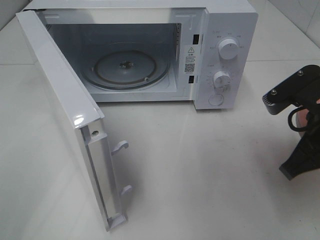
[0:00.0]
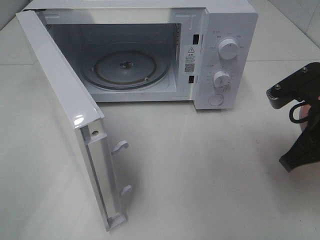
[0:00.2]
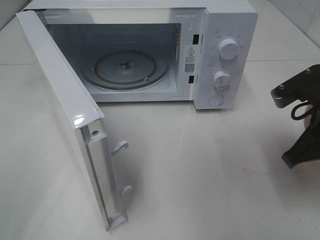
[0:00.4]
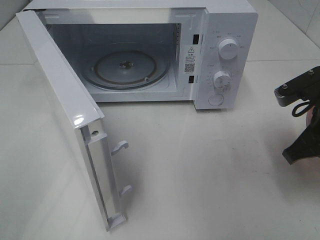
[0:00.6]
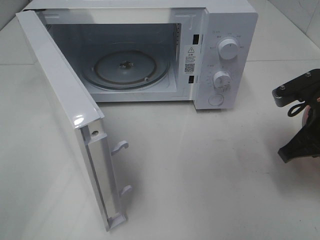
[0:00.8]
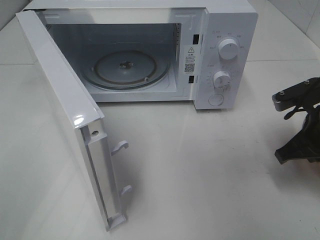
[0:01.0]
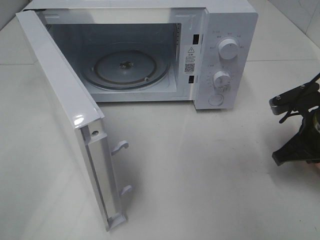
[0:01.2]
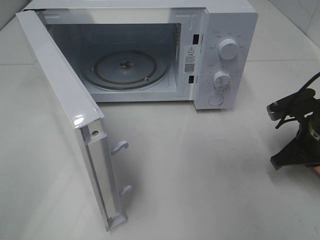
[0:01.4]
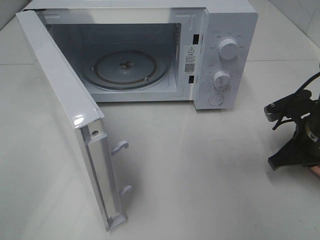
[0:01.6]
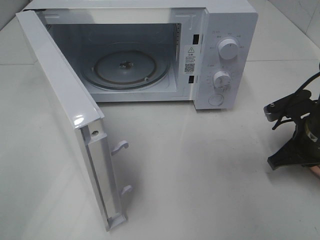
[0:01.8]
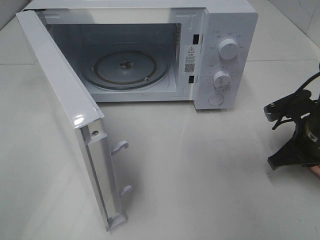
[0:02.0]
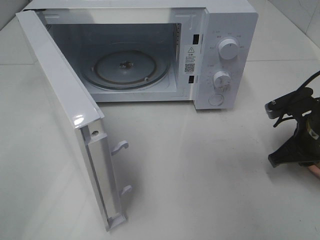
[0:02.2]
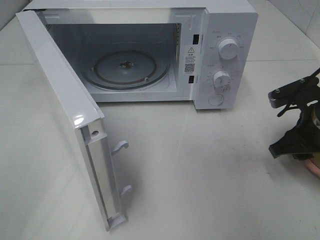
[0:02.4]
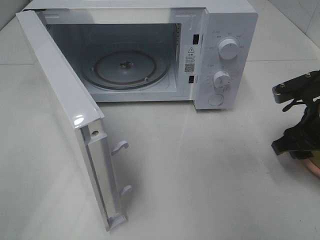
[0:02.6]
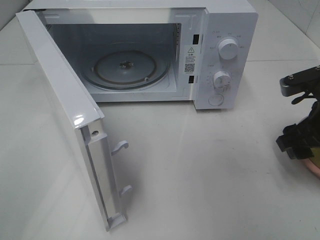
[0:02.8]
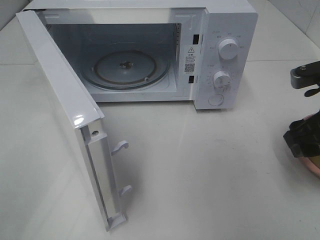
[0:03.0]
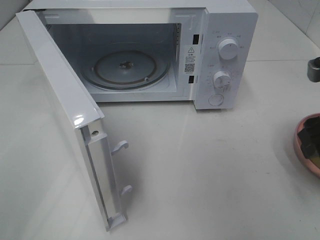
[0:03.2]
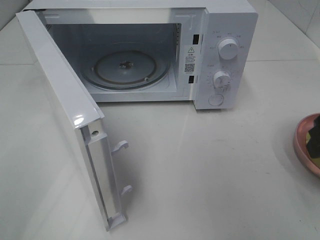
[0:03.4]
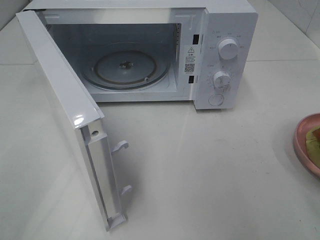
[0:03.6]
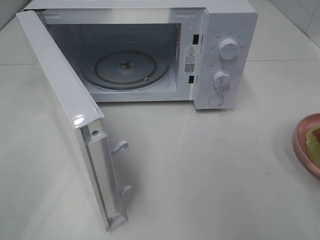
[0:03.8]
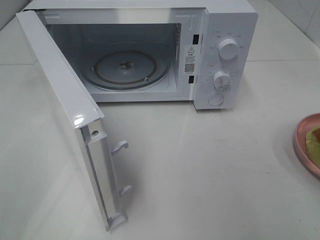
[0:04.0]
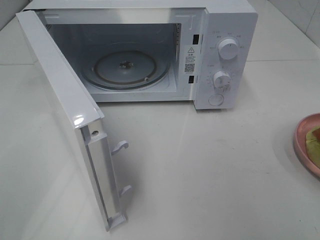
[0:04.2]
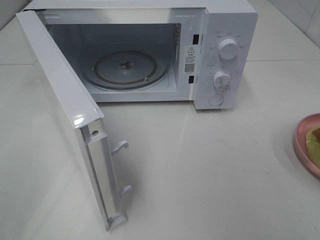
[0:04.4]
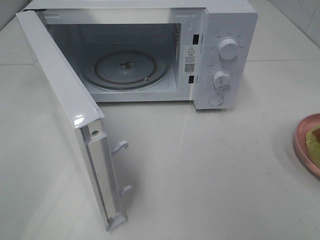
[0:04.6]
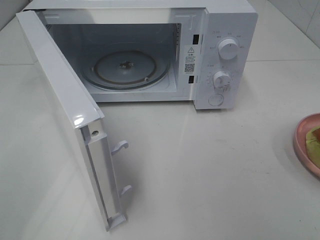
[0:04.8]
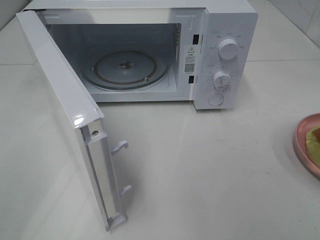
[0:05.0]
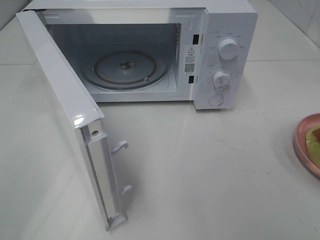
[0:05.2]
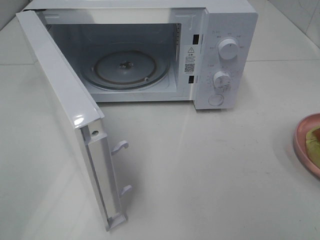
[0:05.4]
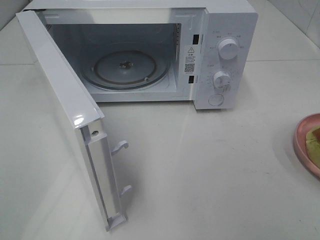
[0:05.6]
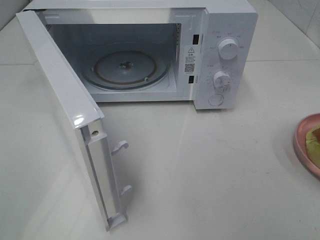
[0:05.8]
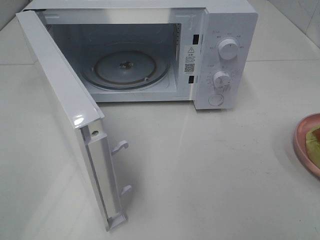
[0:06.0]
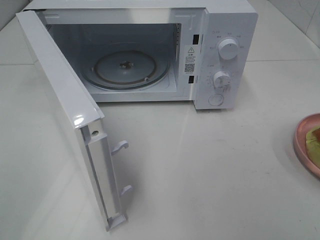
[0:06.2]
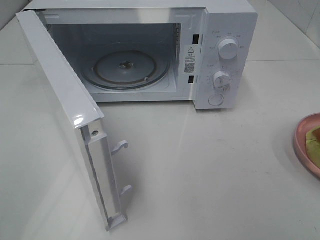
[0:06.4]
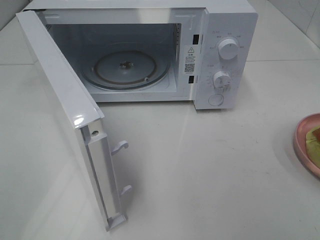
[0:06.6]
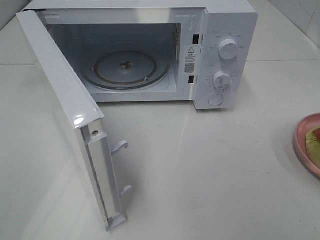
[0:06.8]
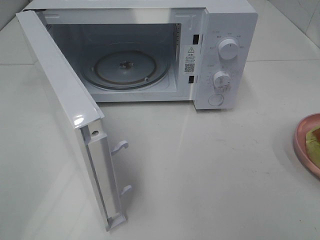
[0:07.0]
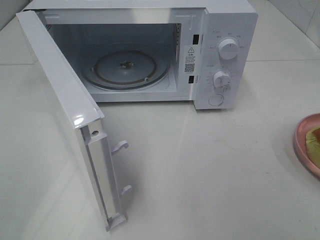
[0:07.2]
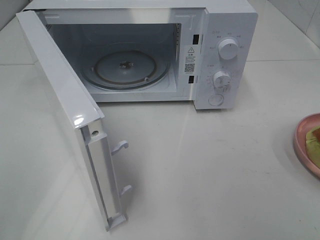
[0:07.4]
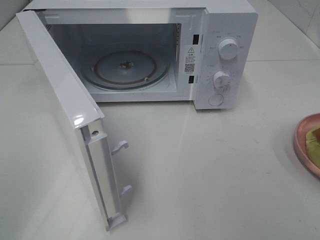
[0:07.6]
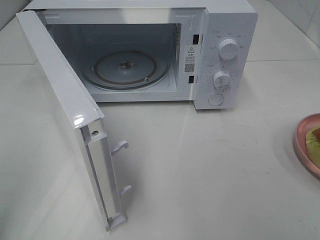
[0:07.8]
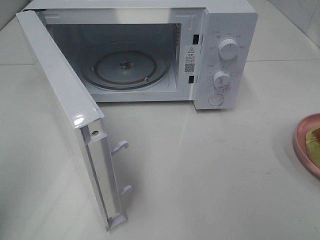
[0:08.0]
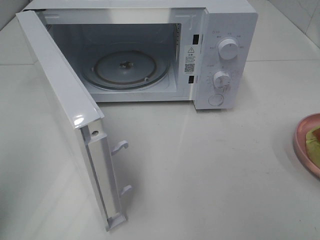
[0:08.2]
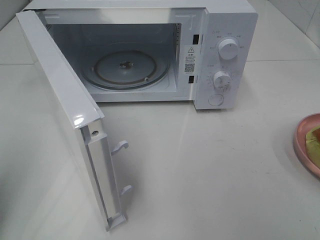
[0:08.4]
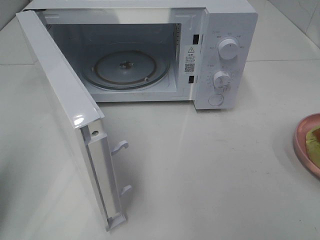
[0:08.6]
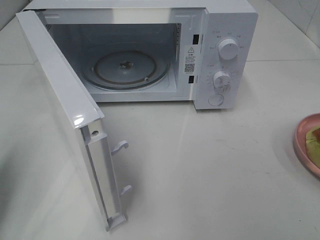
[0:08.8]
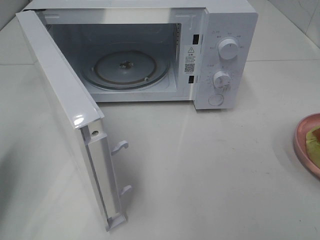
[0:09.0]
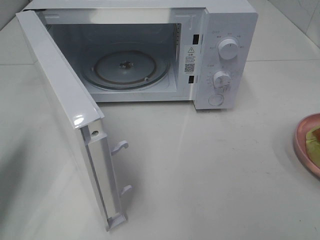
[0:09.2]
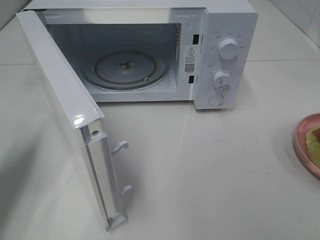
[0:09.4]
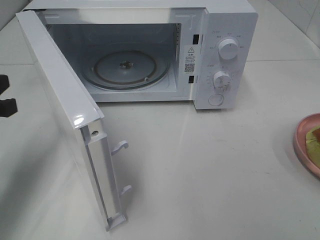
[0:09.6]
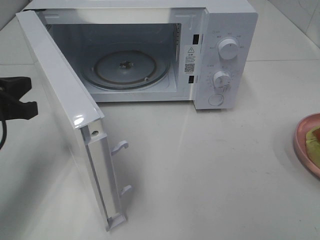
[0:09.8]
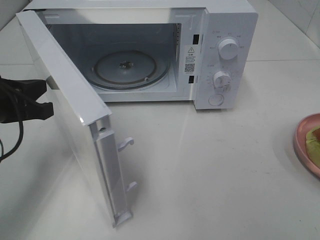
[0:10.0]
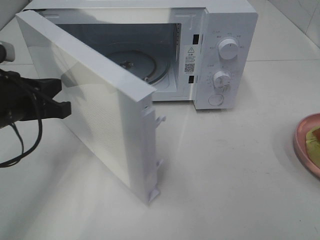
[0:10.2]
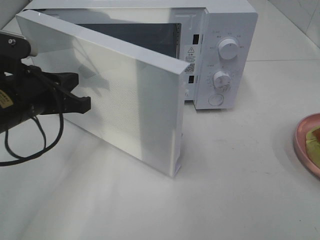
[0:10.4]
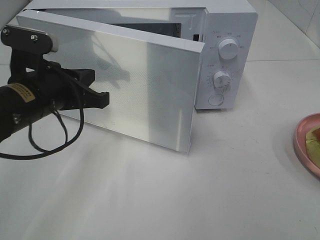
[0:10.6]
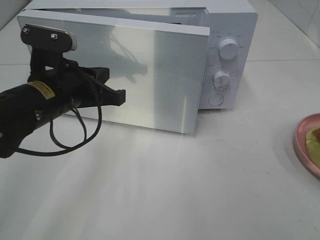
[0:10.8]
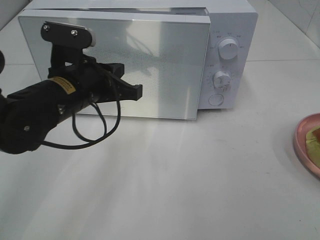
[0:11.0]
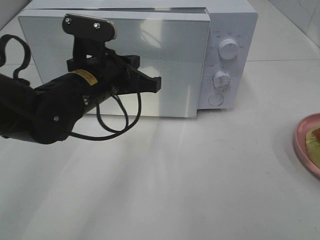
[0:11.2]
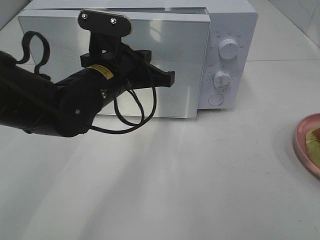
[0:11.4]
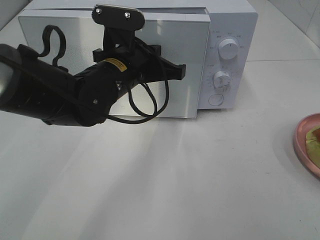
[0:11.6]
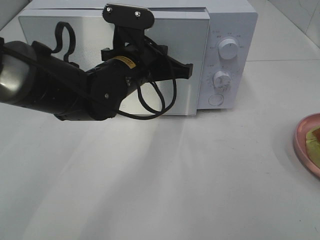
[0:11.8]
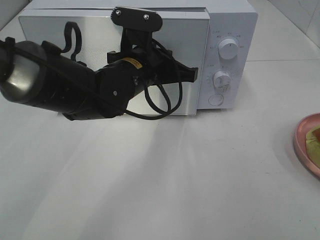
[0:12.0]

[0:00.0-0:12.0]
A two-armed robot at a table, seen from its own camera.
Task of the whole recording: Heat Sandwich.
Step, 0:00.0 to 0:02.6: Right hand: place the plate on the table.
0:00.0 to 0:01.6: The right gripper goes approximately 10 cm downward and forward.
0:01.6 to 0:03.0: The right gripper goes roughly 10 cm upward, and opens its fingers.
0:03.0 to 0:04.4: The right gripper moves backward and upward, roughly 20 cm.
0:07.6 to 0:09.0: The left gripper heads forward and downward, covering about 20 cm, and closes its fingers.
0:09.0 to 0:10.4: The left gripper shifts approximately 15 cm to the right and forward.
0:10.4 to 0:12.0: The left gripper shifts approximately 15 cm to the right and forward.

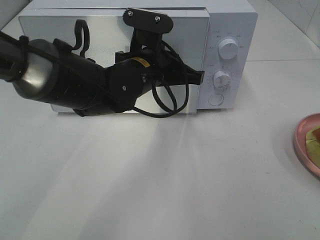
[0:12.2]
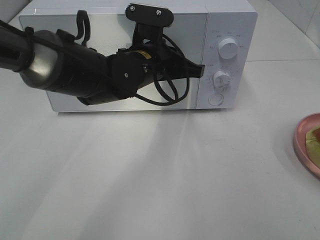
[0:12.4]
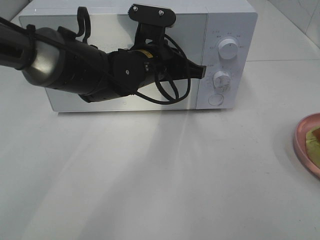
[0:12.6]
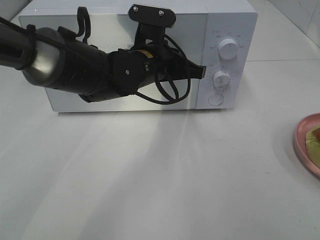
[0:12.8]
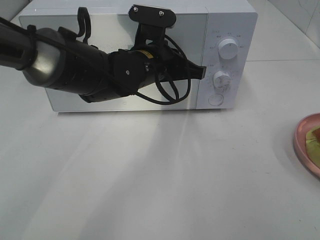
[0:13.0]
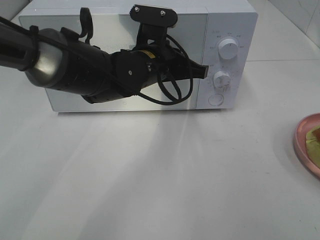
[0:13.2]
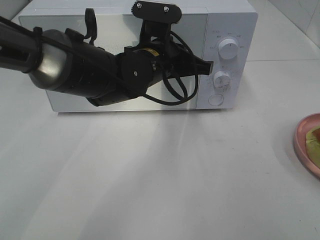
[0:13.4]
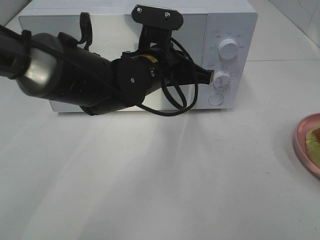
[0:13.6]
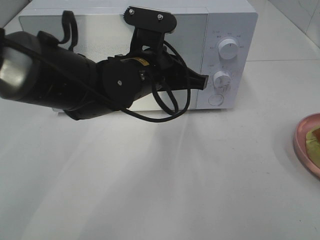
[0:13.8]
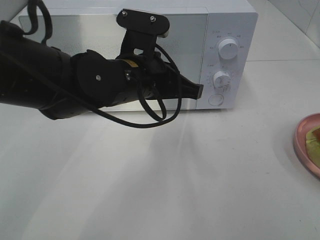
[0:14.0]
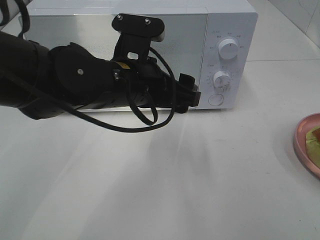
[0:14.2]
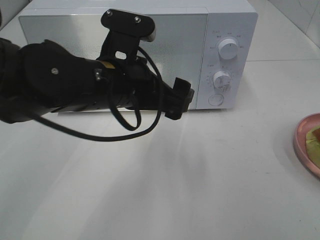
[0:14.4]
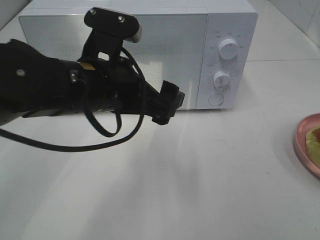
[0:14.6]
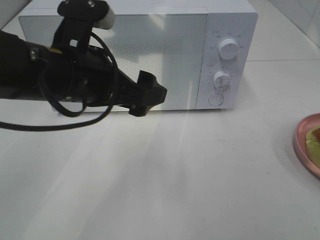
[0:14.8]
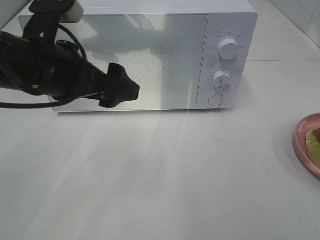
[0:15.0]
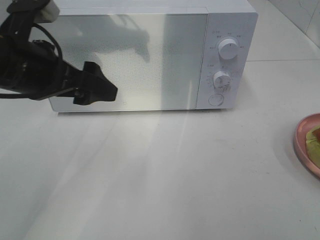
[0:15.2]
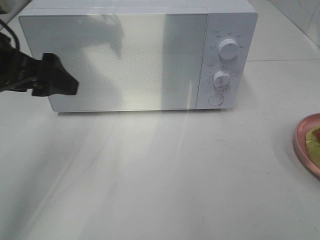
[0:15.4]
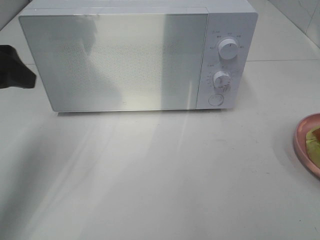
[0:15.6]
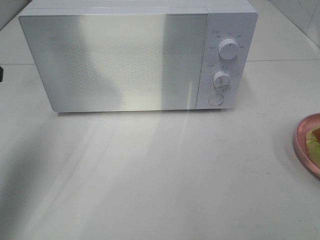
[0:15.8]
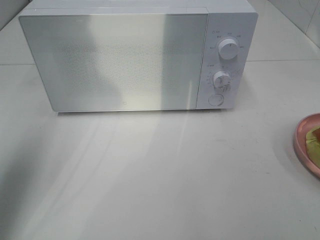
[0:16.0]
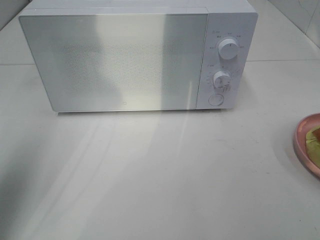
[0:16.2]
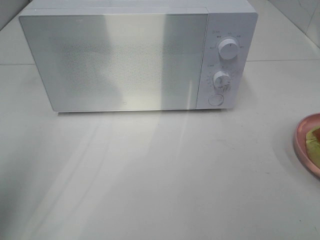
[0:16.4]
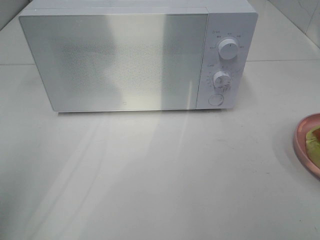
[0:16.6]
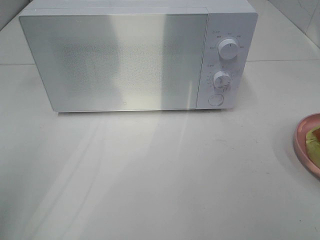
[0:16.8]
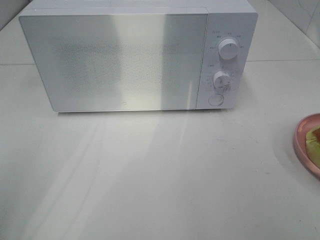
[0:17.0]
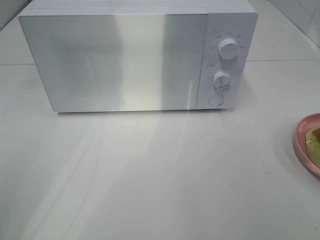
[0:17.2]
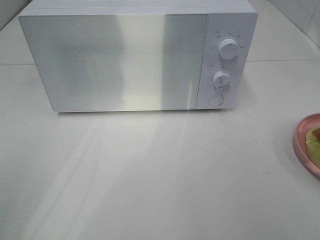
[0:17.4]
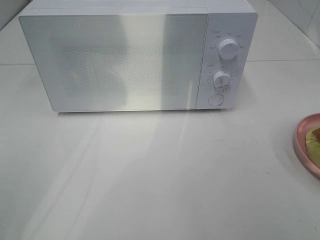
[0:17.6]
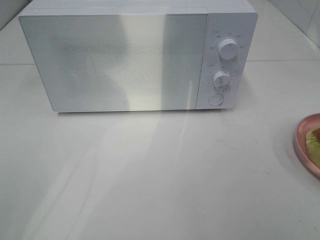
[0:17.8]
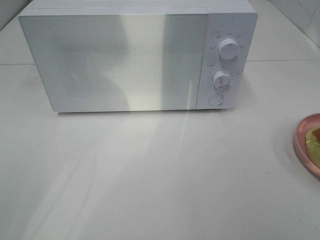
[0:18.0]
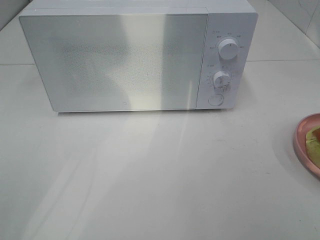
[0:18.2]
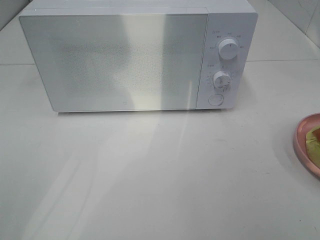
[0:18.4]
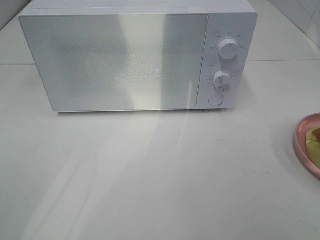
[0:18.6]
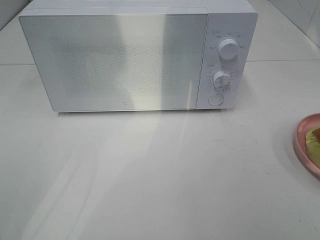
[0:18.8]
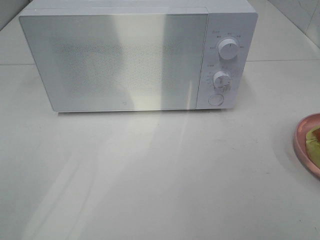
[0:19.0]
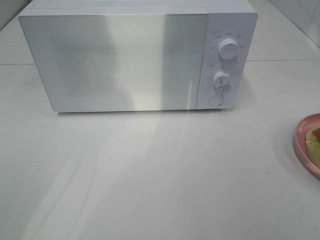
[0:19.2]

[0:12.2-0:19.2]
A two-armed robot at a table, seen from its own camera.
Task of the whole recording: Heat Sandwich.
0:12.2 to 0:13.6: The grippers move only a little.
0:13.6 to 0:15.0: The left gripper moves to the left, backward and upward, roughly 15 cm, and opens up.
0:15.0 to 0:16.4: The left gripper travels to the left and backward by roughly 20 cm.
0:16.4 to 0:17.8: The left gripper heads backward, covering roughly 15 cm.
0:17.8 to 0:19.2: Neither gripper changes place.

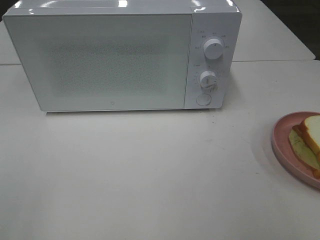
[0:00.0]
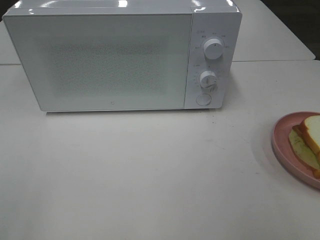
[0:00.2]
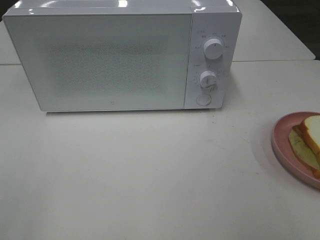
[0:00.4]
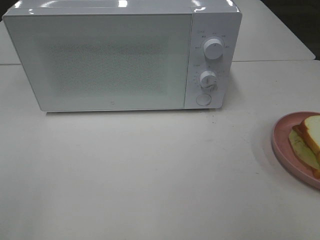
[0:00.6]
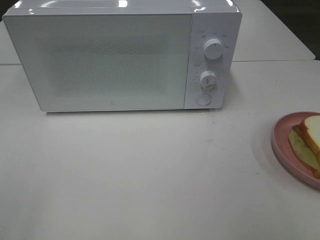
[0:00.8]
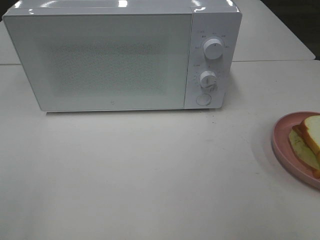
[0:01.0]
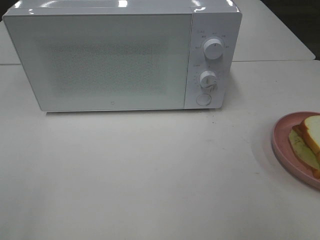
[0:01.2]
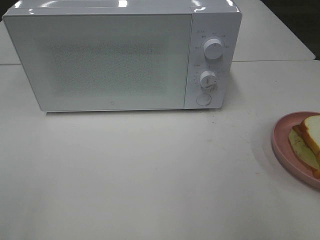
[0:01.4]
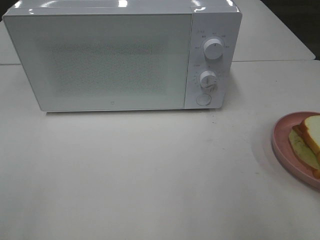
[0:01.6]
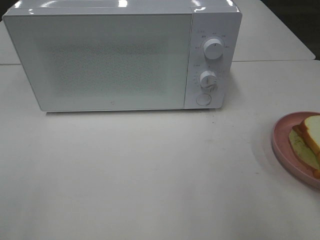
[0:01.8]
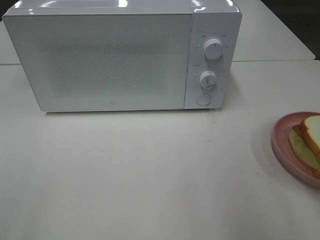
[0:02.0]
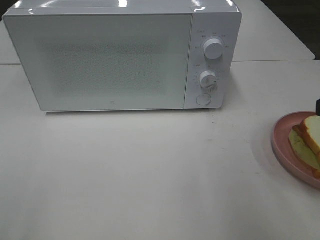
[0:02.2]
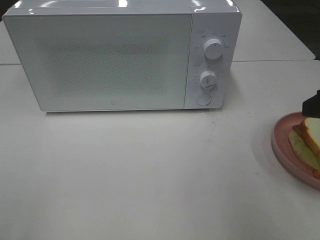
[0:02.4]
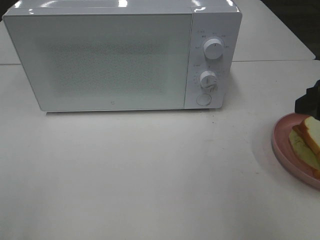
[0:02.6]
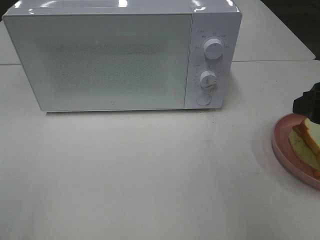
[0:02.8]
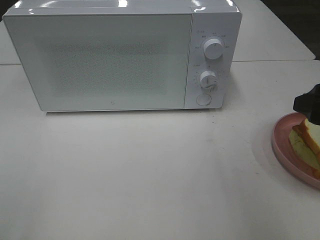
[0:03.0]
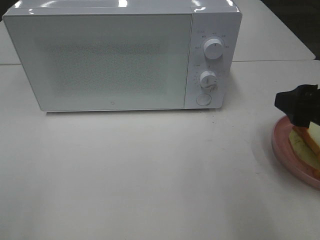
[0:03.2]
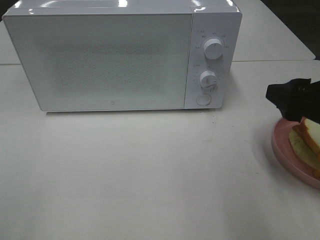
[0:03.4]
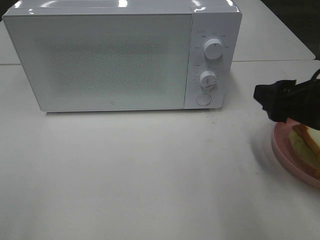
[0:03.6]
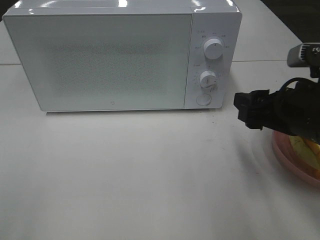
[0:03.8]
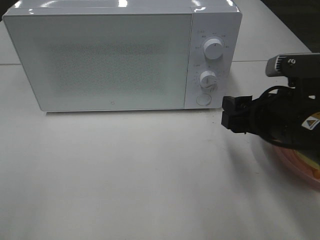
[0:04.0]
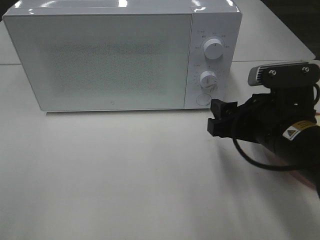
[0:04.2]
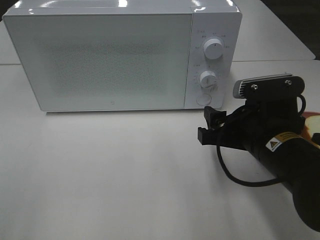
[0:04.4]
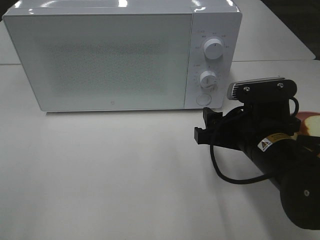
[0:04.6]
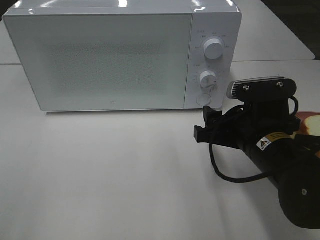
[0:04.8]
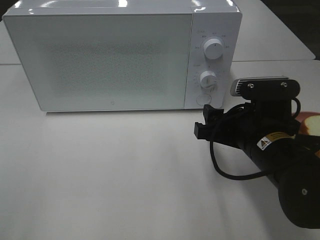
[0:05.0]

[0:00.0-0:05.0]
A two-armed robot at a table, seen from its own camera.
Task of the whole recording: Heat Sandwich.
0:01.6 to 0:03.4: The right gripper travels forward and downward by some 10 cm.
0:03.4 to 0:05.0: The right gripper heads to the left and downward, covering some 10 cm.
